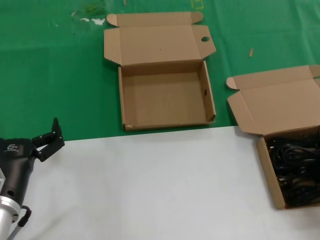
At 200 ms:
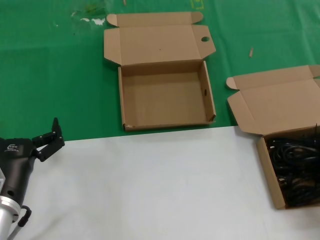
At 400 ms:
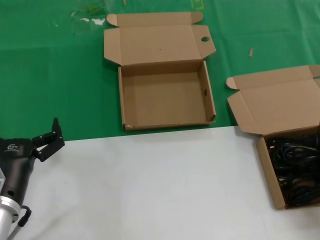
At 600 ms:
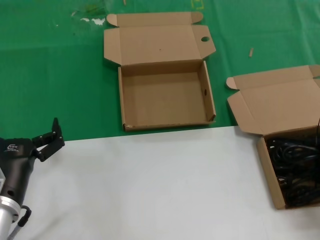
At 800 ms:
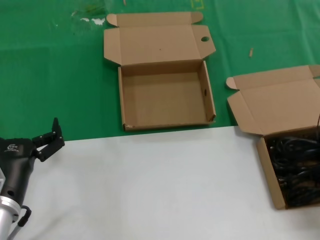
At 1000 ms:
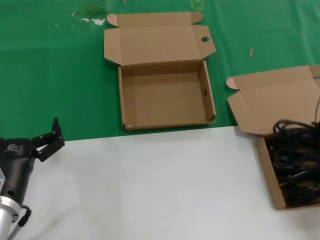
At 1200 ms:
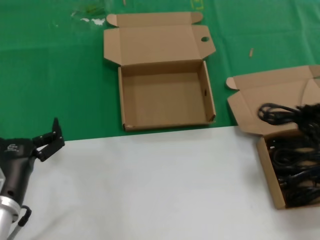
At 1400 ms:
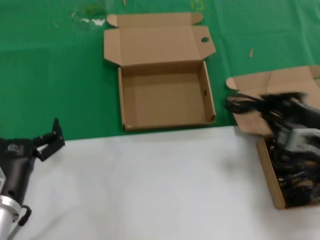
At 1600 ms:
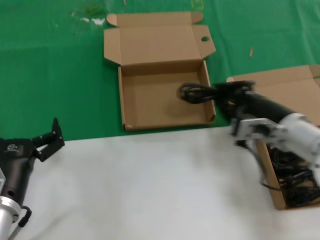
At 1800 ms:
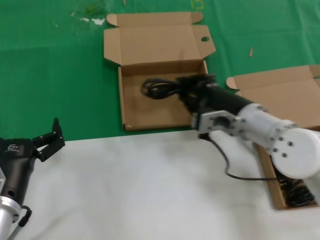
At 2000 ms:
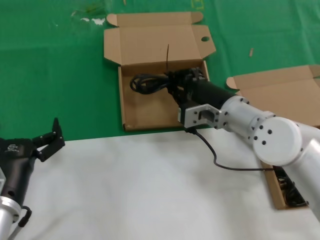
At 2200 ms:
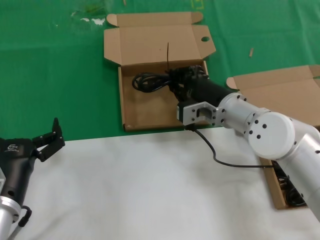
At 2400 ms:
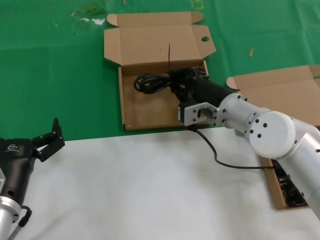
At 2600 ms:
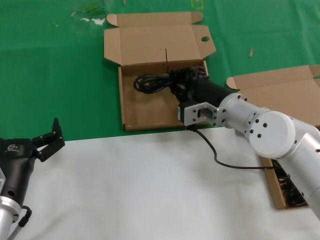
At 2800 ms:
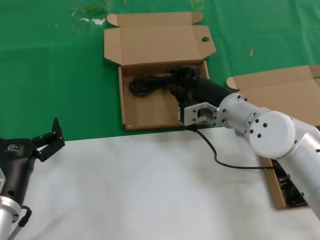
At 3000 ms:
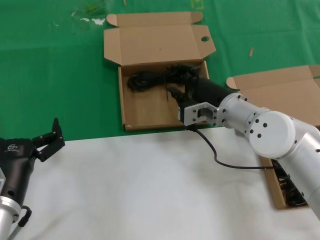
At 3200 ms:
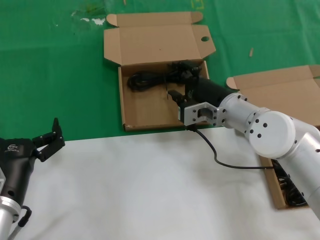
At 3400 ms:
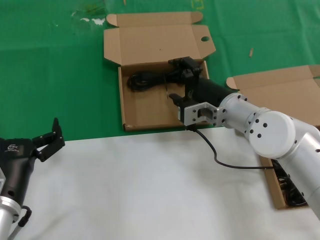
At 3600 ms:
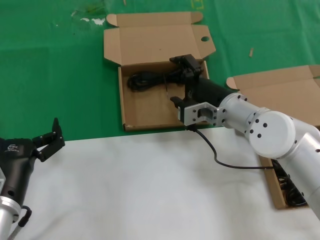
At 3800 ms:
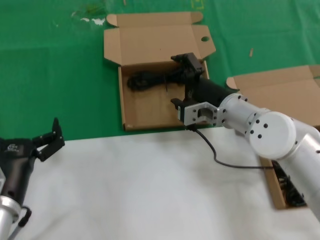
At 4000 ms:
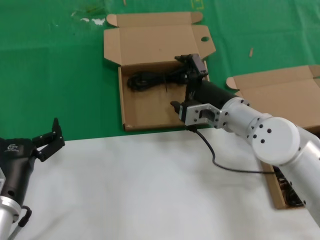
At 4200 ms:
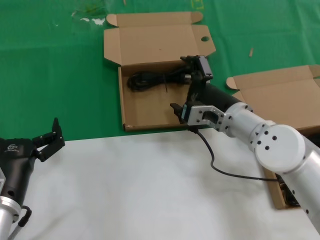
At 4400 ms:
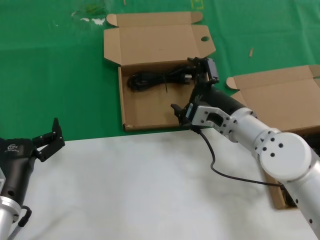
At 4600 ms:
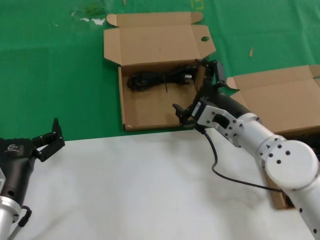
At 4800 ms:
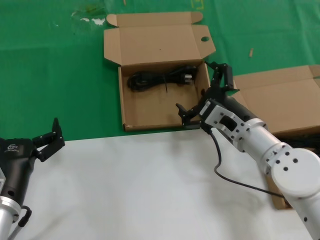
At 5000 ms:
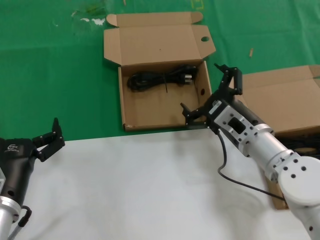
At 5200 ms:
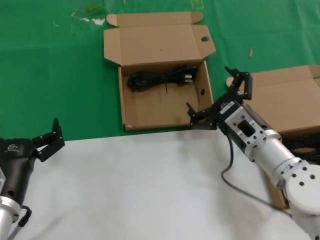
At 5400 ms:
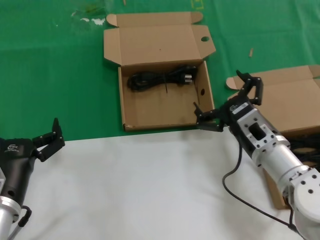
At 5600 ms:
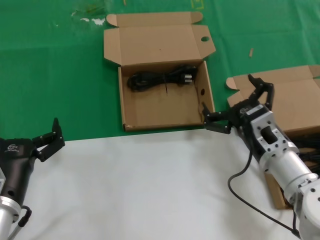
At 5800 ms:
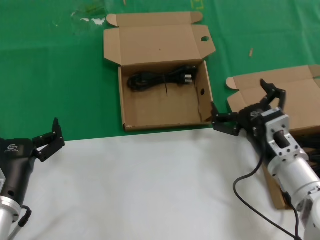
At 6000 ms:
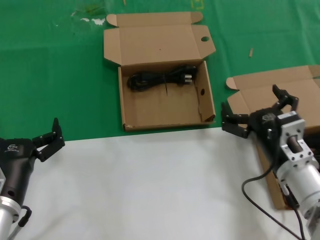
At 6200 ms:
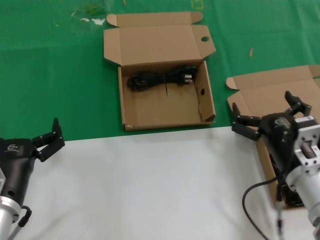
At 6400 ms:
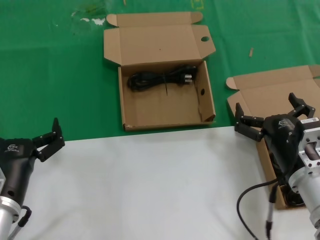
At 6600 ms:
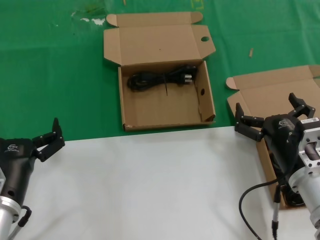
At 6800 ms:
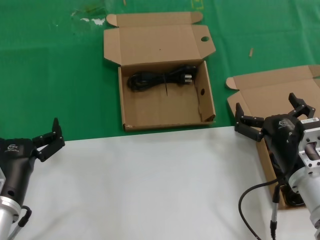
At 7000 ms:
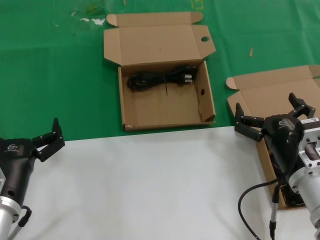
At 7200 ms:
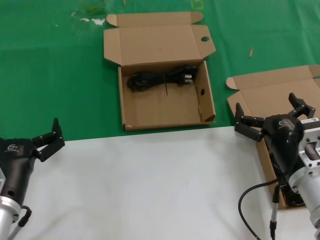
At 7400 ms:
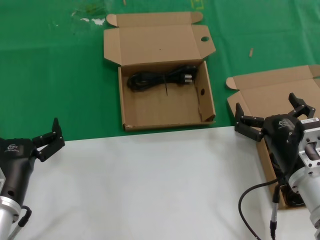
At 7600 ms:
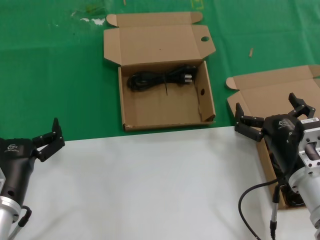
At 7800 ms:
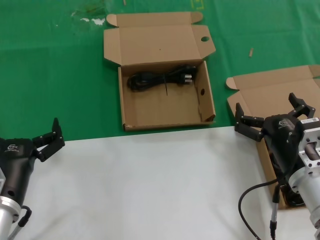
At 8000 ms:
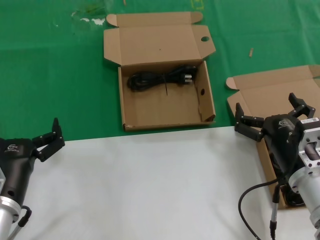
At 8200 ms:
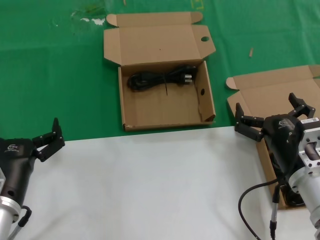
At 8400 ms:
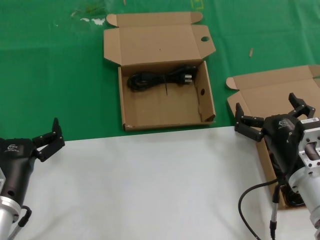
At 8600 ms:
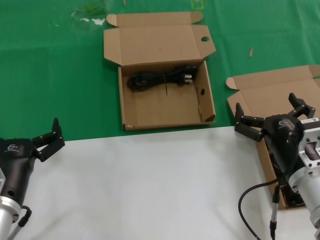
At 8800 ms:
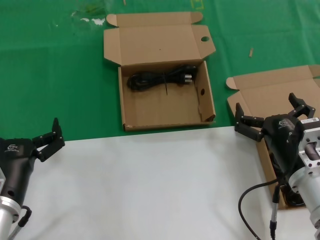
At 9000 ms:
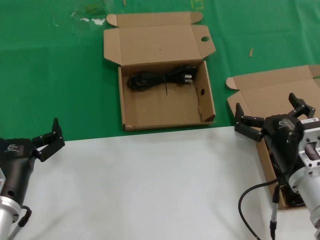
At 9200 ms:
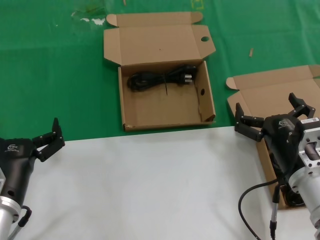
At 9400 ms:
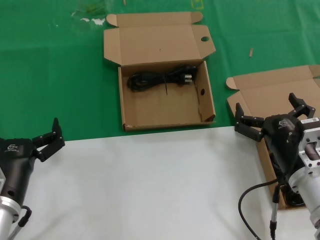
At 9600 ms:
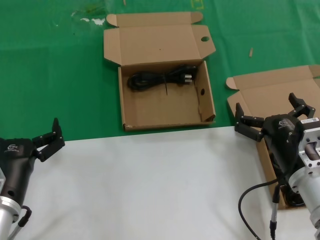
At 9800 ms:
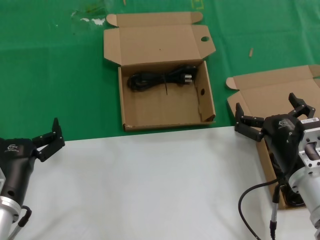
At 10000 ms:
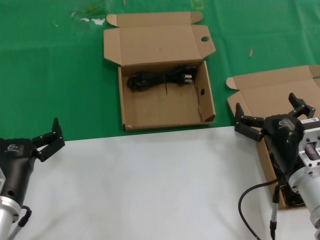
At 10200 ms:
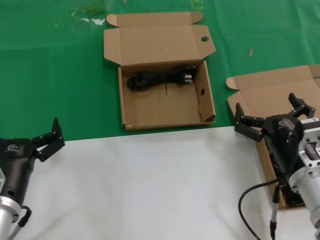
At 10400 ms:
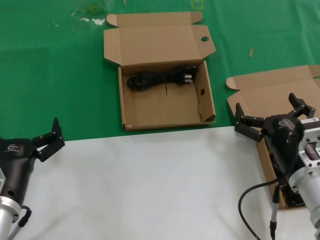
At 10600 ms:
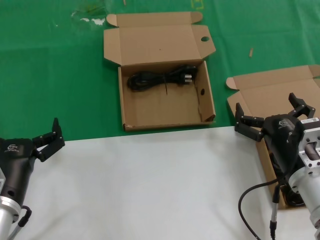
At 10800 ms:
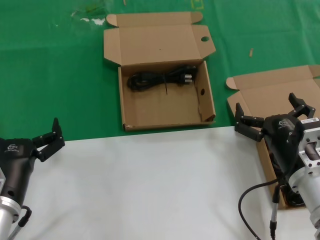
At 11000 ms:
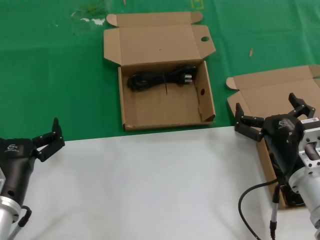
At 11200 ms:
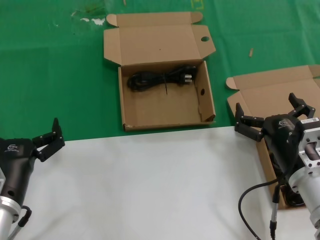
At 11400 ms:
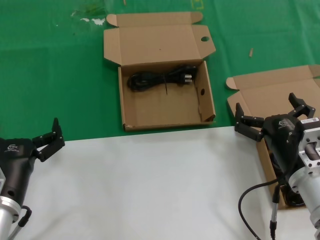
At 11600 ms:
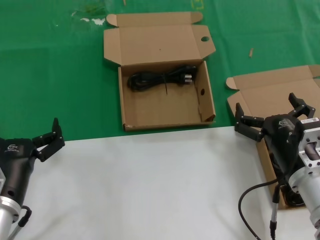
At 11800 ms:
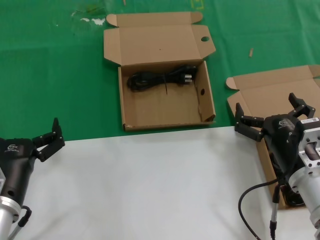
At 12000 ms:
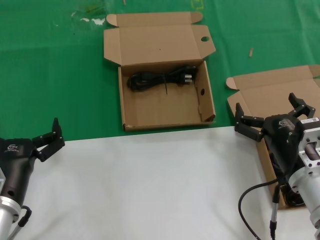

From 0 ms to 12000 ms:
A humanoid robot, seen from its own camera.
Task of the whole recording: take the parts from the box containing them and put them into an empty box.
Step, from 1000 ms to 4600 ms: Place the data cable in the another box.
From 0 ms to 1600 ms: The right hand heads to the left and forward, covering about 20 cm.
From 1600 ms to 3000 ms: The right hand travels to the left and forward by roughly 15 cm.
From 3000 ms to 4400 ms: The hands move only a little.
From 4400 ms to 6000 ms: The right hand shifts roughly 10 cm backward and to the right.
From 6000 ms to 7600 ms: The hands make only small movements.
From 7600 ms to 12000 ms: Neither hand changes place.

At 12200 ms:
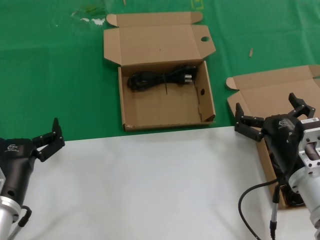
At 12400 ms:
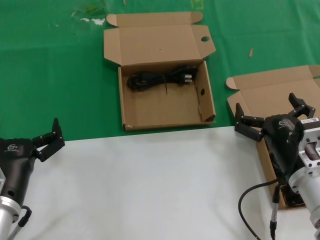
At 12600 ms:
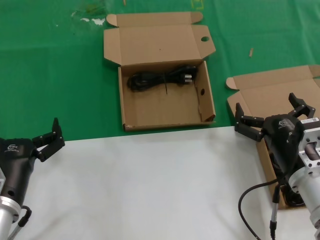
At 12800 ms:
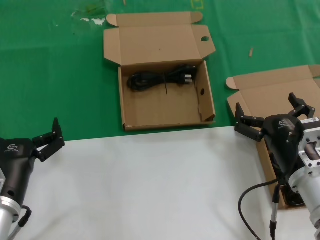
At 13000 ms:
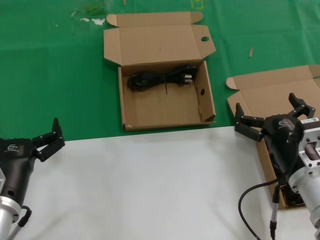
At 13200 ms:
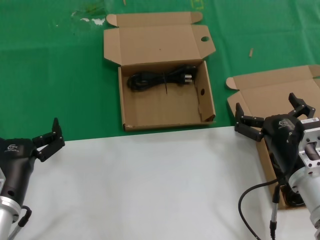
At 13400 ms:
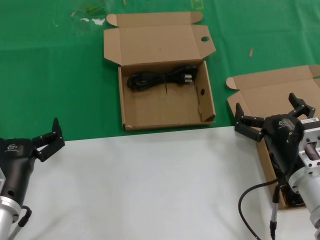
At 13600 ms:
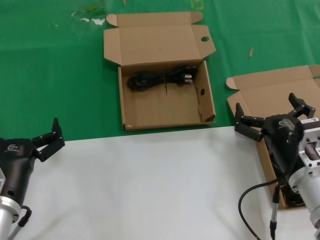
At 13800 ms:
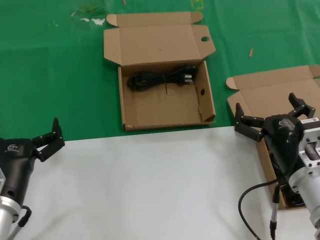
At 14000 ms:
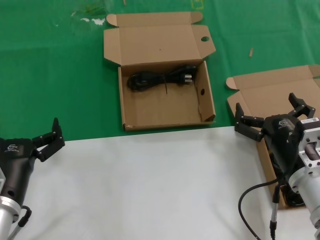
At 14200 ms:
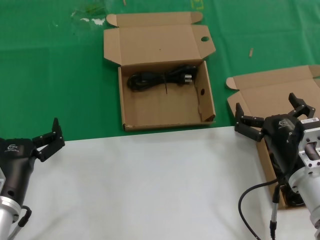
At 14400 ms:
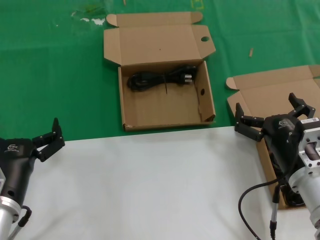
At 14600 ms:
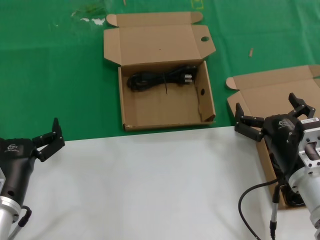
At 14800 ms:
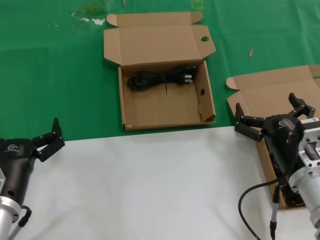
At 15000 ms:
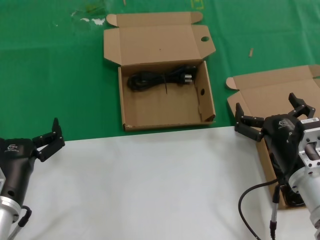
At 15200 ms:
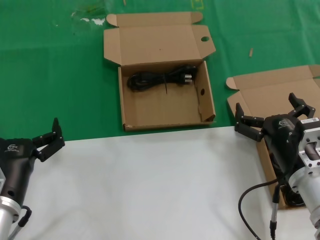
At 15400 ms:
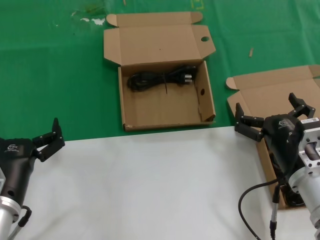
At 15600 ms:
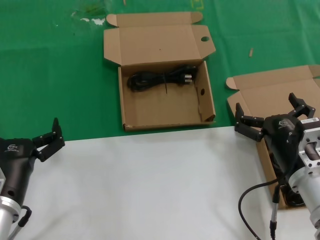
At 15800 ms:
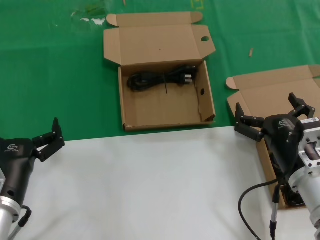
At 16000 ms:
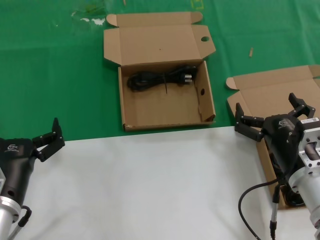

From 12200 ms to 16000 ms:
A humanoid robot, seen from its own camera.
Task of the whole recording: take the parts from the box containing them and put them into an empty box.
From 12200 ms to 16000 ms: Both hands stay put.
